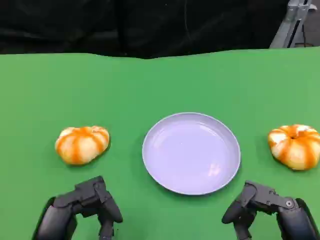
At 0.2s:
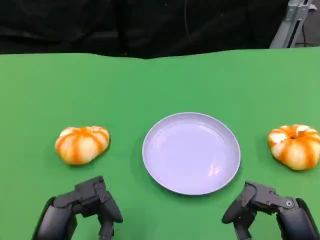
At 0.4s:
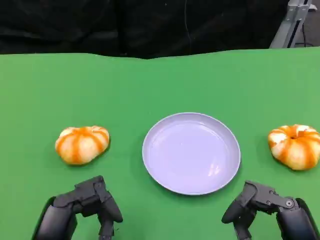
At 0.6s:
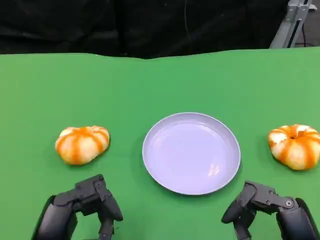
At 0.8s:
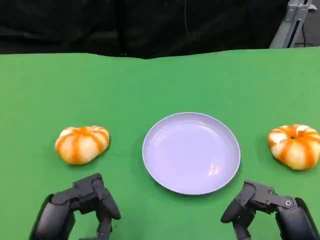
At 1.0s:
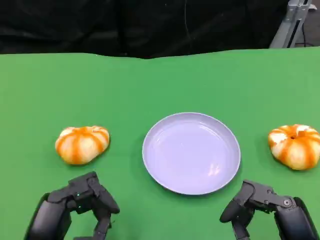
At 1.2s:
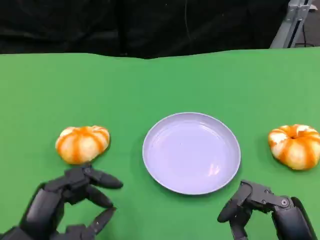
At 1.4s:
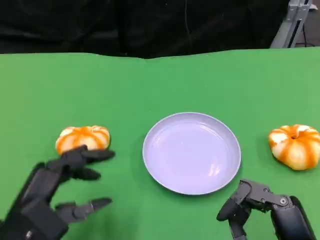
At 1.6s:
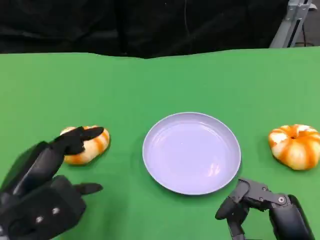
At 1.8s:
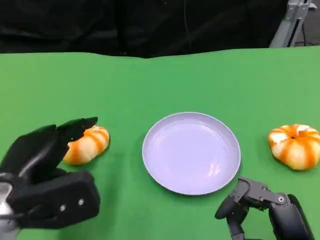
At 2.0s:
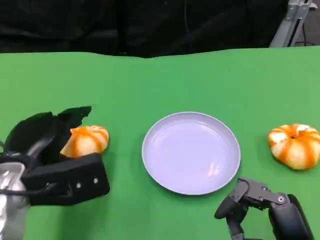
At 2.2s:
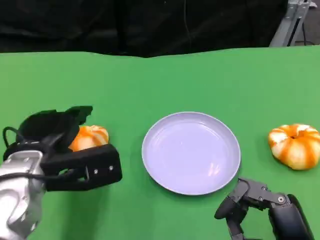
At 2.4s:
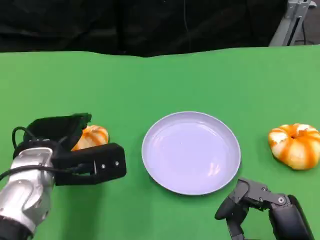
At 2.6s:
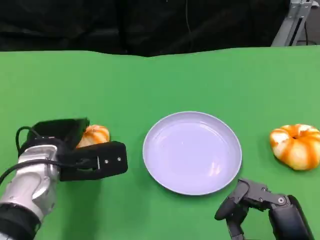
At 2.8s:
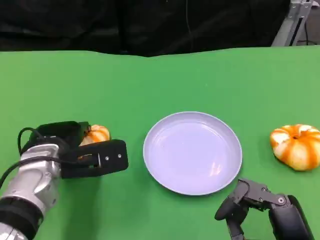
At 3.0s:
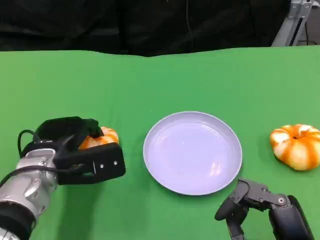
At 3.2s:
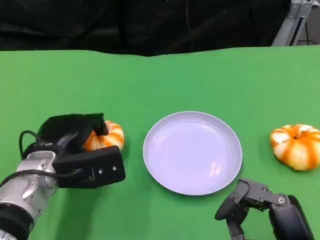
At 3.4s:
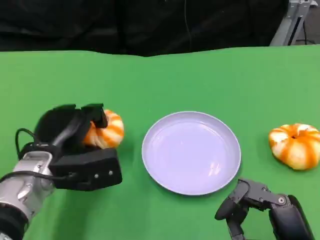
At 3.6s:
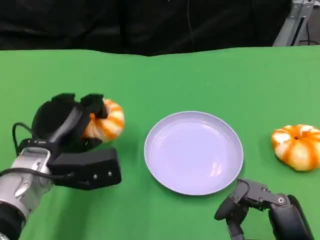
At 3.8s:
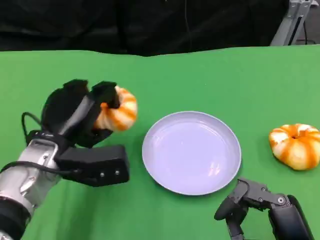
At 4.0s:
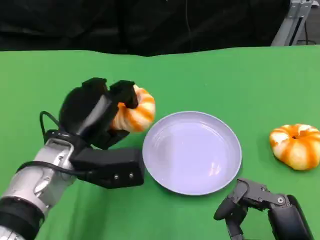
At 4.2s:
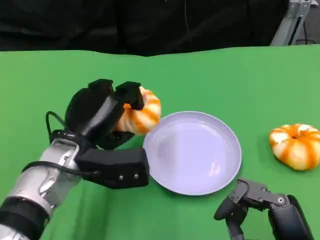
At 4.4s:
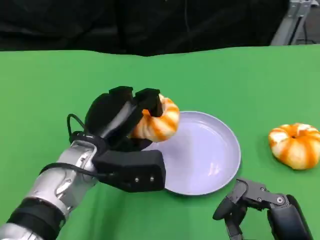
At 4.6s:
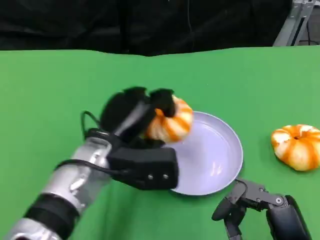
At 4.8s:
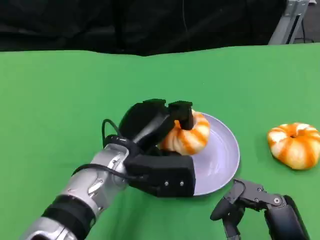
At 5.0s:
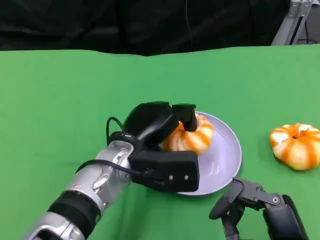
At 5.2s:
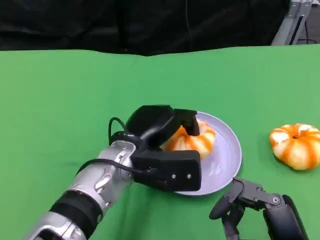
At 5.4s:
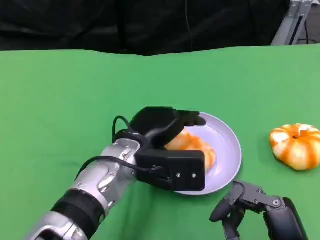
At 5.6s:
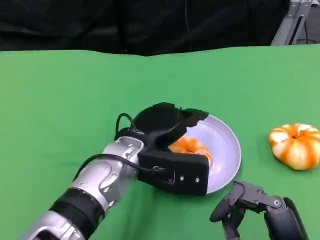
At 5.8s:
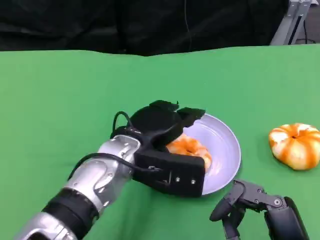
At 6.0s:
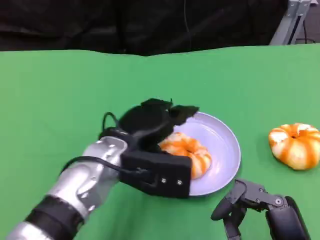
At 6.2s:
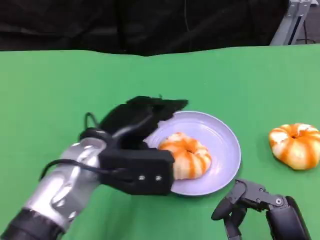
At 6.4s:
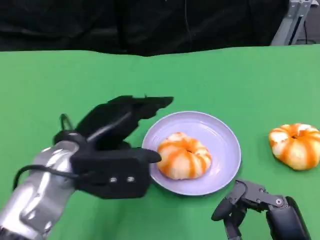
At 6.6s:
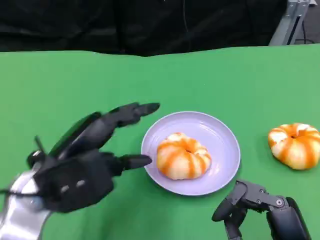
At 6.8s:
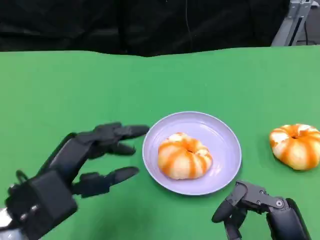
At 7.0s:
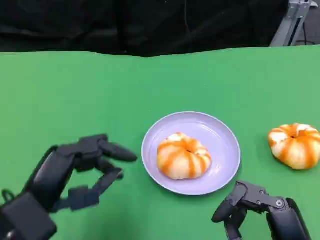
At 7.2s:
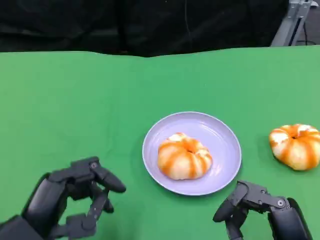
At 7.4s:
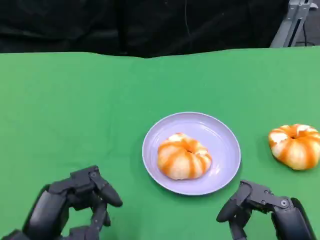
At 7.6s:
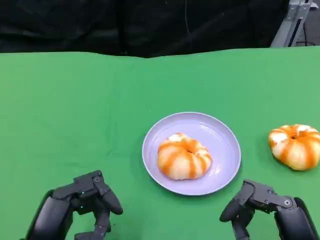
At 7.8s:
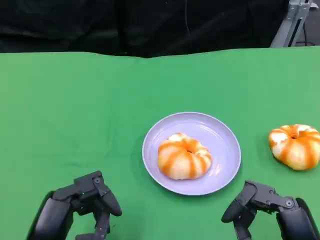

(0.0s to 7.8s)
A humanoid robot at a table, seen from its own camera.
Task of the whole recording: Grasp the bread from the table and place it into the plate.
0.0s - 1.6s: The left hand heads forward and upward, covering roughly 10 cm.
1.6s - 3.2s: The left hand moves forward, roughly 10 cm.
3.2s - 4.6s: The left hand travels to the right by roughly 10 cm.
4.6s - 6.2s: The left hand changes place by about 5 cm.
6.2s - 7.8s: The left hand moves backward, to the left and downward, roughly 15 cm.

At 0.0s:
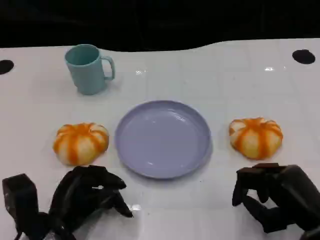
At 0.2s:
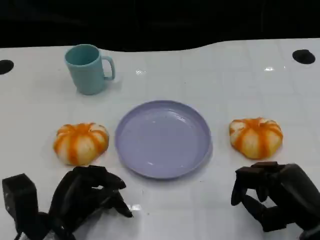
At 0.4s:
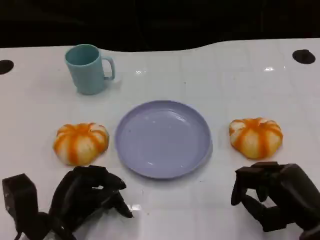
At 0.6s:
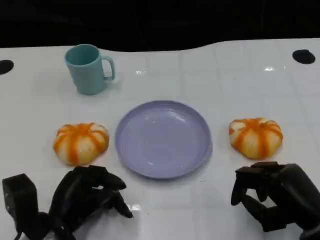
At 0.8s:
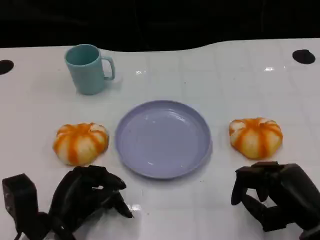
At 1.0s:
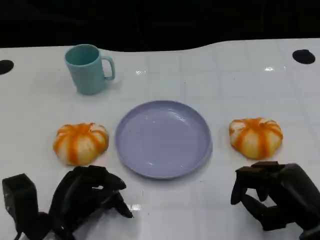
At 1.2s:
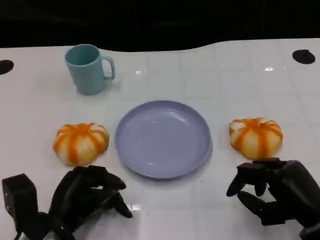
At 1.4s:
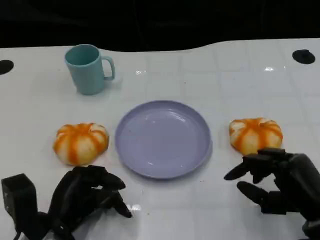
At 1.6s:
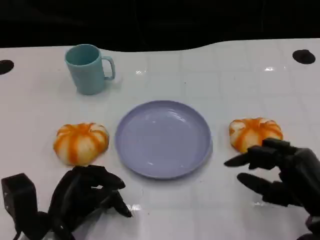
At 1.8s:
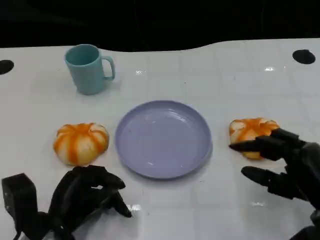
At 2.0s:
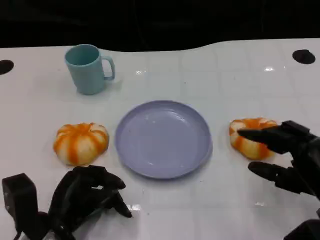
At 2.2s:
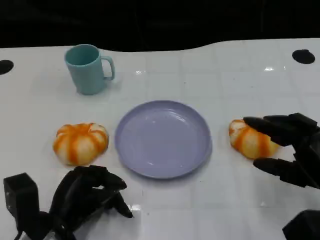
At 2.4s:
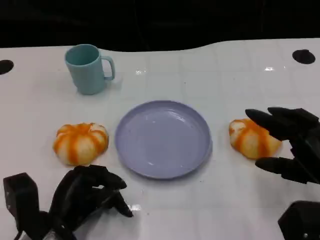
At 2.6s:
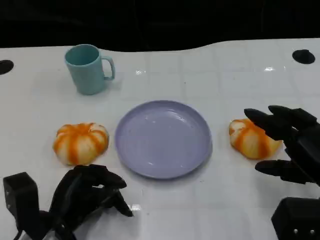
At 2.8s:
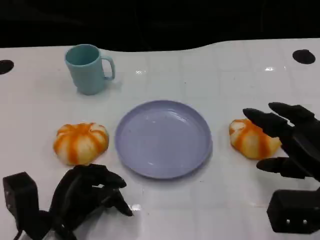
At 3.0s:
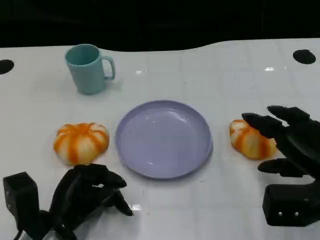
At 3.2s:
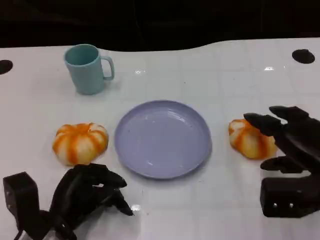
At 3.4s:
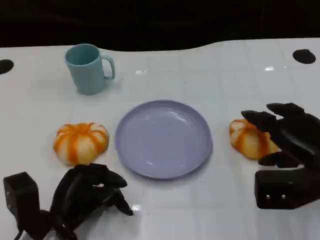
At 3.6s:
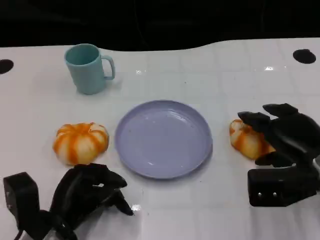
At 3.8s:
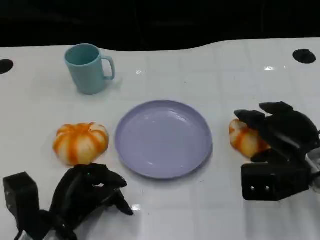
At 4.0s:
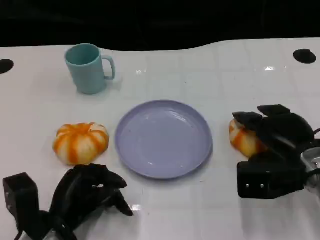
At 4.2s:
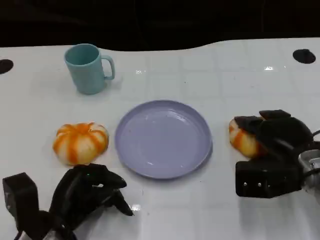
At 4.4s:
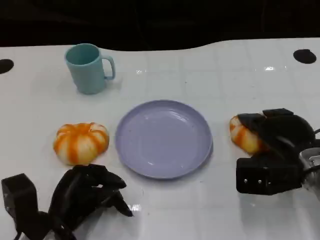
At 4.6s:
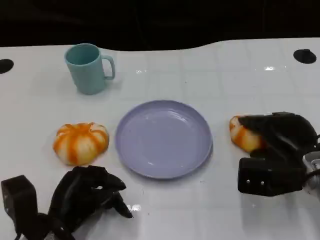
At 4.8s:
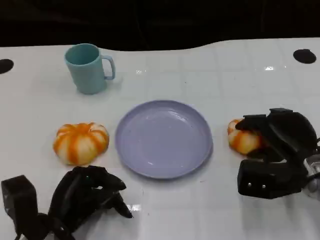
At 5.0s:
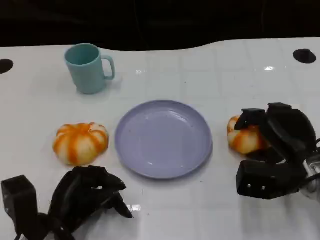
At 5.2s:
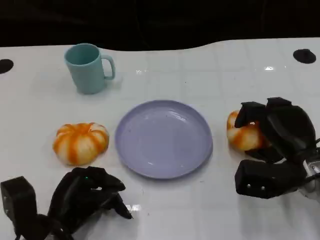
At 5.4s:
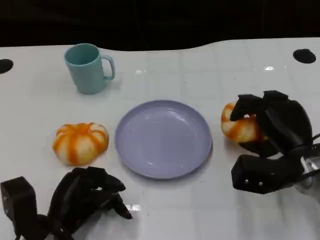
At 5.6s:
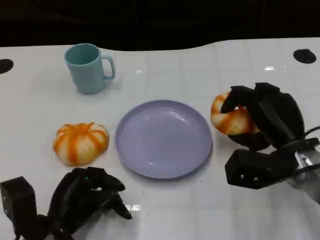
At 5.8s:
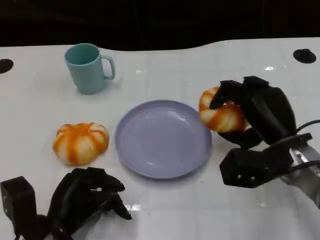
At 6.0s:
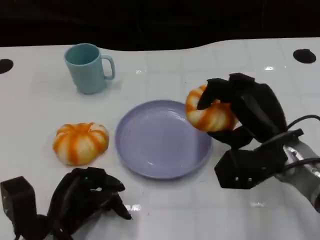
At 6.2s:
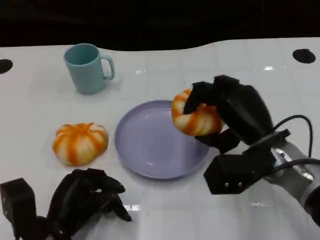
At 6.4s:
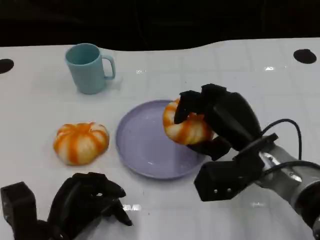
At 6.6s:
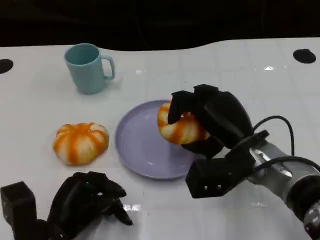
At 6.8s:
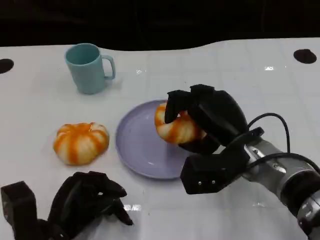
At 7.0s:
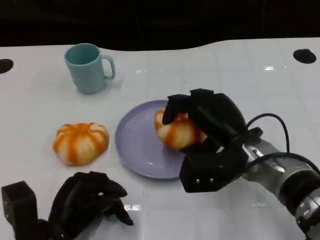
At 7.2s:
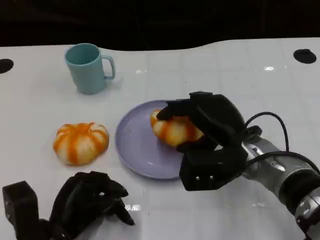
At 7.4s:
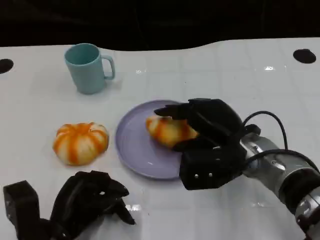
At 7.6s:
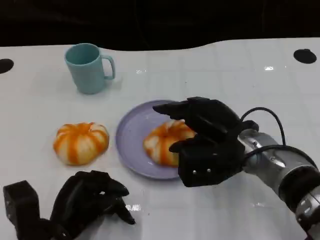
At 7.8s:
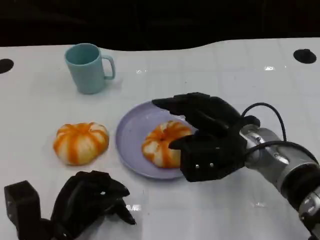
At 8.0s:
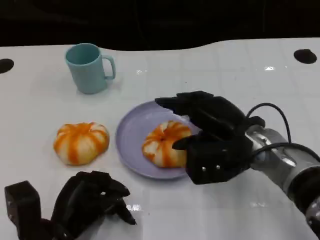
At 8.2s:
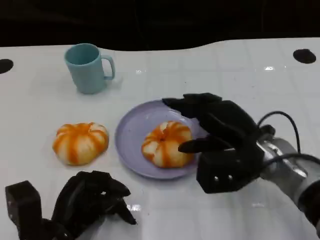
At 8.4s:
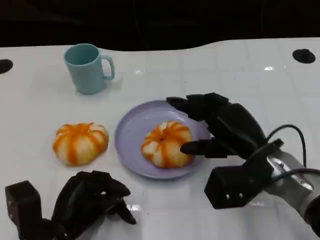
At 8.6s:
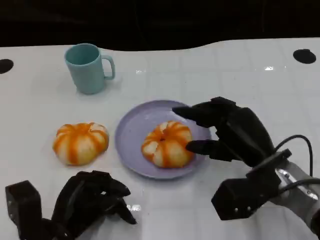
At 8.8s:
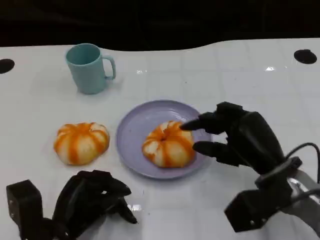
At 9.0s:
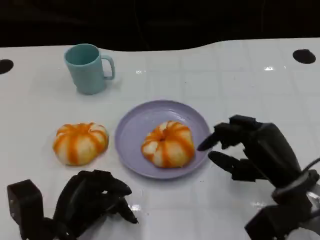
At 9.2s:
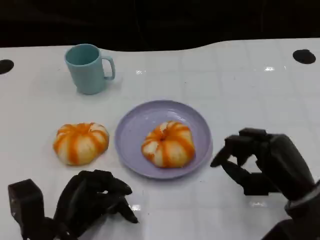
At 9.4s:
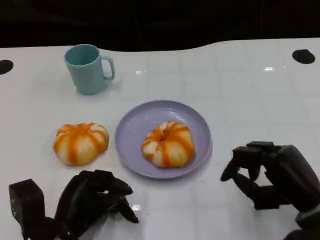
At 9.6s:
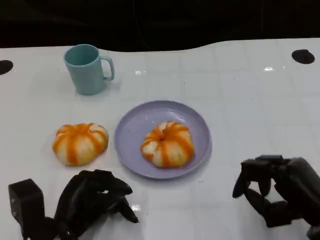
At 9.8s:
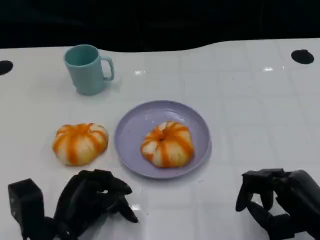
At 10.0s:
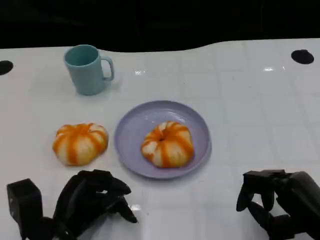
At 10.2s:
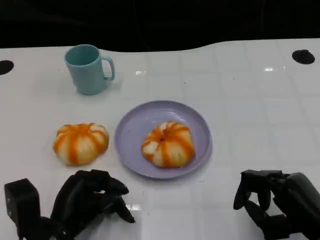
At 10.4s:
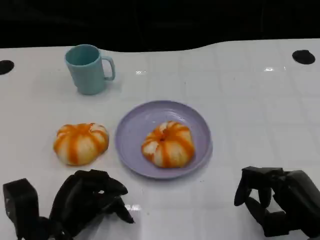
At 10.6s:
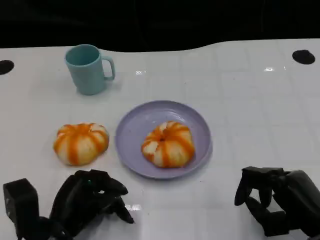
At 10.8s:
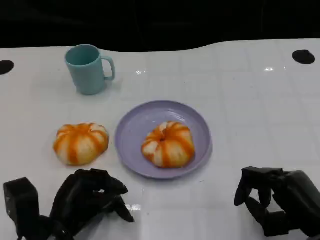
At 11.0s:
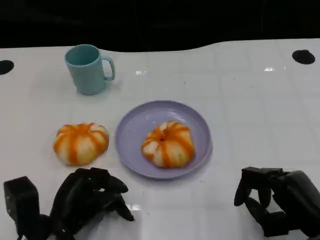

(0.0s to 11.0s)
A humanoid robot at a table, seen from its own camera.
Task of the whole recording: Grasp the bread from the table and place it into the plate.
0.0s - 1.6s: The hands move only a little.
1.6s - 3.2s: The right hand heads forward, covering about 5 cm.
3.2s - 4.8s: The right hand changes place by approximately 5 cm.
4.8s - 6.2s: The right hand travels to the left by some 5 cm.
7.8s - 9.4s: The right hand travels to the right and backward by about 15 cm.
9.4s - 11.0s: The hands make only small movements.

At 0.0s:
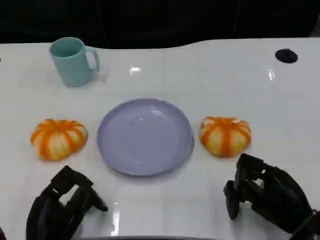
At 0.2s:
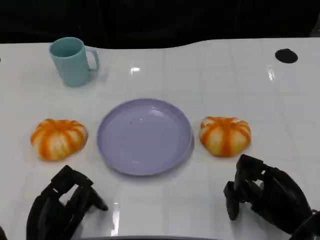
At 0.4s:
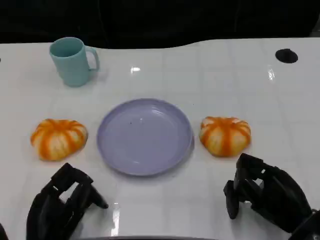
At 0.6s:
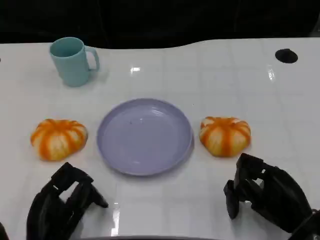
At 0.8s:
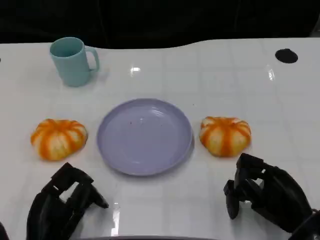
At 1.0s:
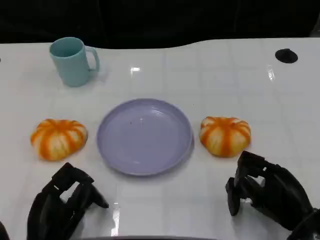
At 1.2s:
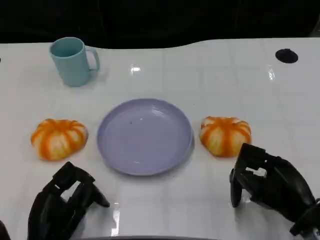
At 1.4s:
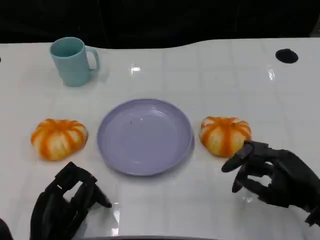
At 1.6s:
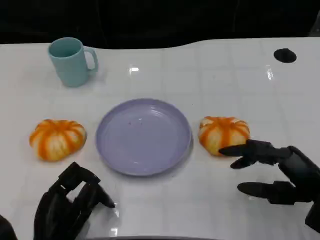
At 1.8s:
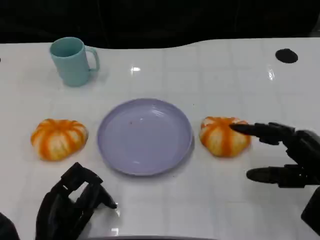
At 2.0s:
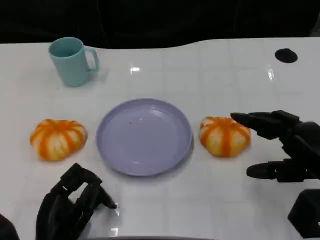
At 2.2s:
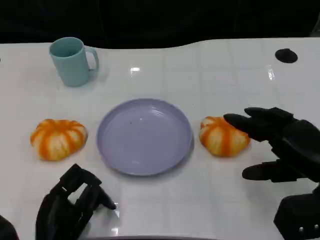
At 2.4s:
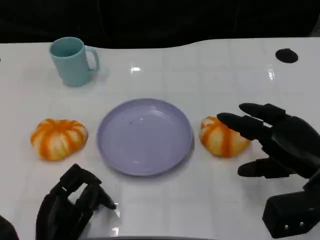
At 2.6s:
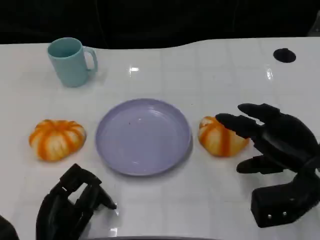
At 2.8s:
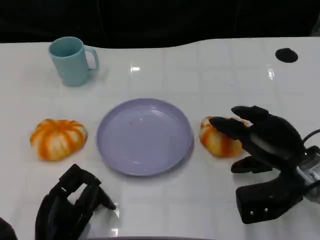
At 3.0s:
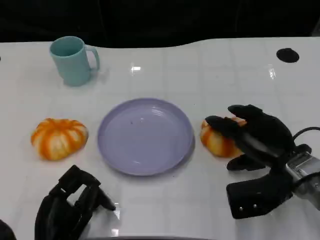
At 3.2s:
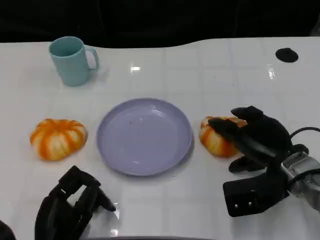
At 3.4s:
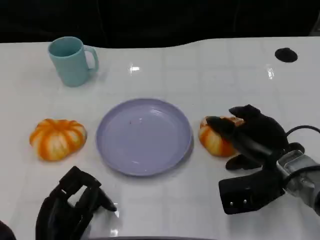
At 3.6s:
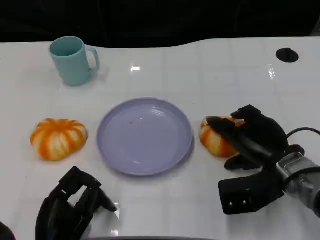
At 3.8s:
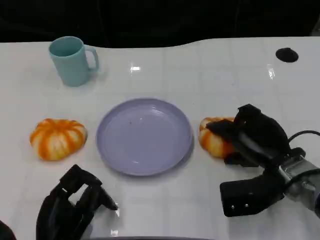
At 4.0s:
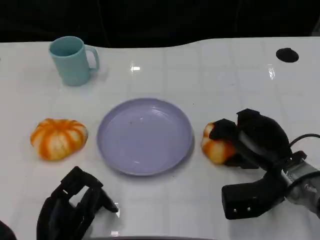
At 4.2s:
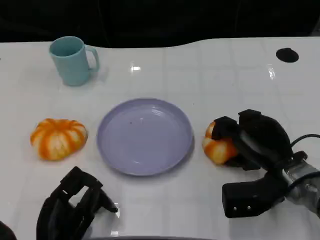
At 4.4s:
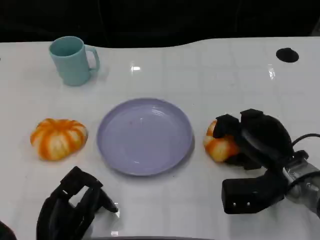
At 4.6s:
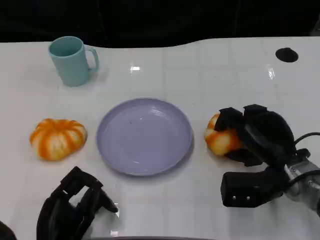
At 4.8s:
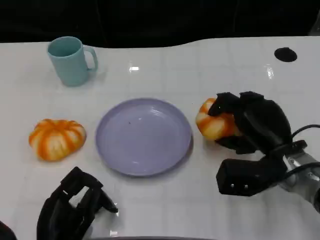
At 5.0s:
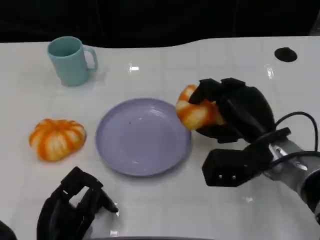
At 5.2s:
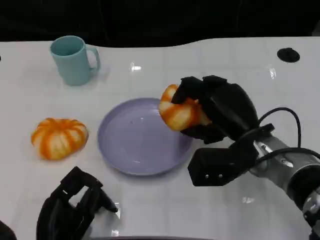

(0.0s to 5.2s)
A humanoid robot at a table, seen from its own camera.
Task of the whole recording: Grasp the bread from the table and place it into the plate.
0.0s - 1.8s: The right hand travels upward by about 10 cm.
1.8s - 3.4s: The right hand goes approximately 10 cm to the left and forward.
3.4s - 5.2s: The right hand is displaced to the left by roughly 5 cm.
